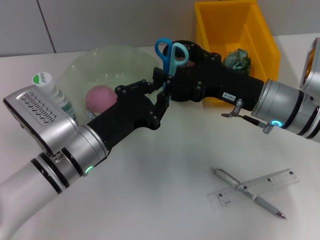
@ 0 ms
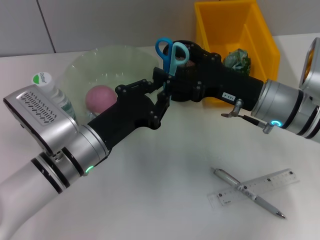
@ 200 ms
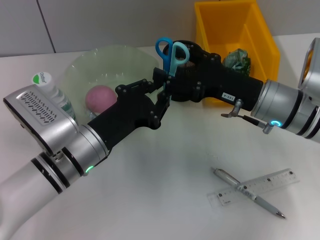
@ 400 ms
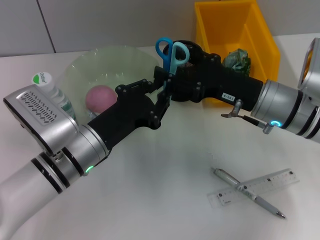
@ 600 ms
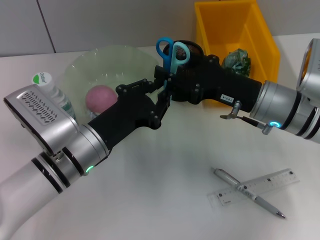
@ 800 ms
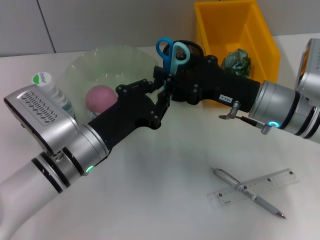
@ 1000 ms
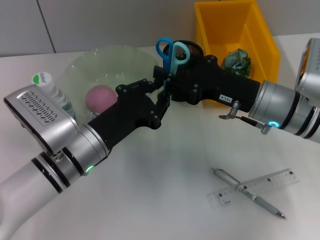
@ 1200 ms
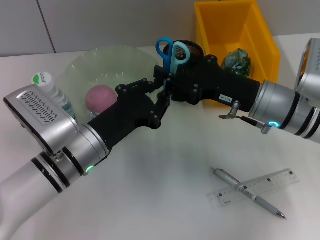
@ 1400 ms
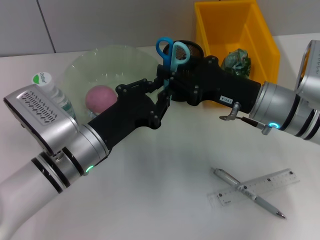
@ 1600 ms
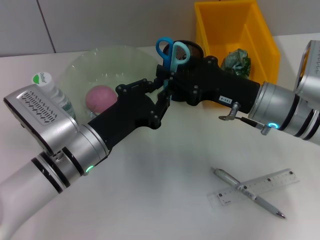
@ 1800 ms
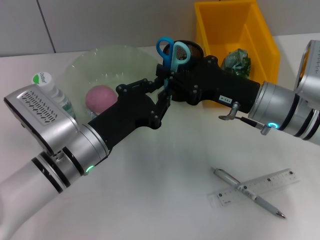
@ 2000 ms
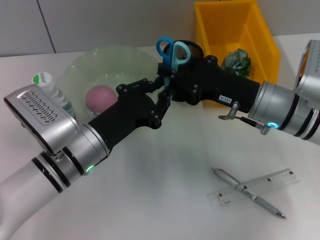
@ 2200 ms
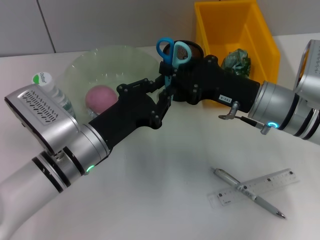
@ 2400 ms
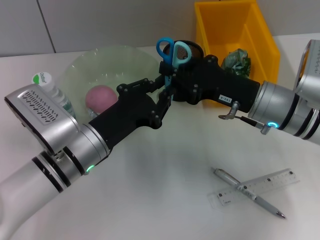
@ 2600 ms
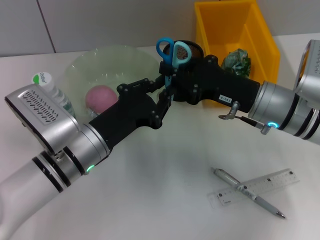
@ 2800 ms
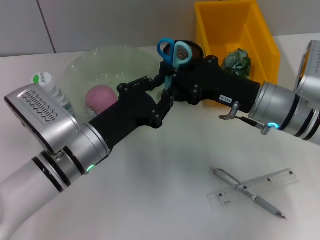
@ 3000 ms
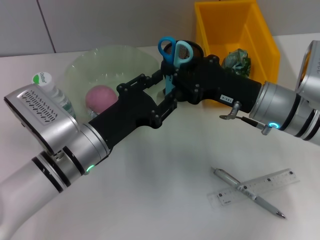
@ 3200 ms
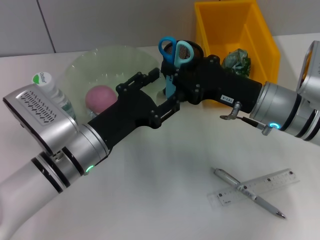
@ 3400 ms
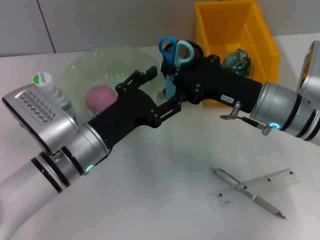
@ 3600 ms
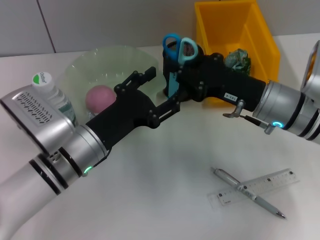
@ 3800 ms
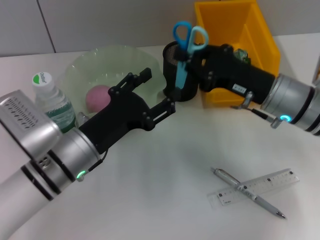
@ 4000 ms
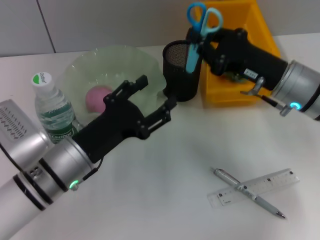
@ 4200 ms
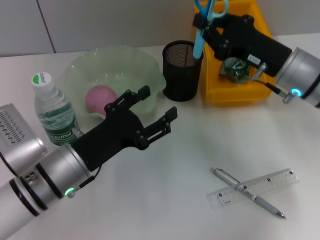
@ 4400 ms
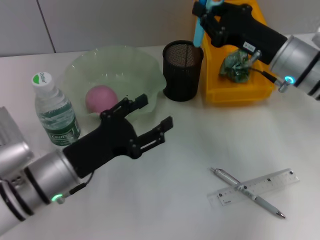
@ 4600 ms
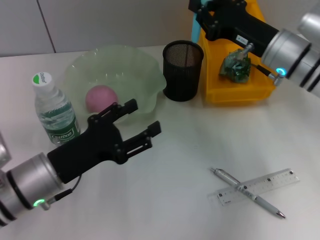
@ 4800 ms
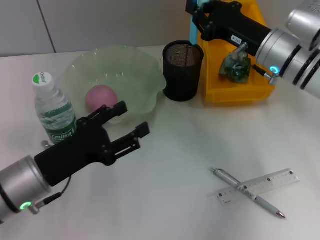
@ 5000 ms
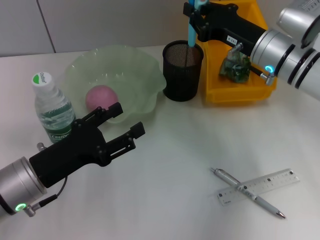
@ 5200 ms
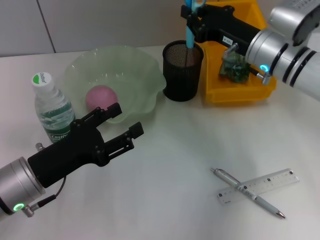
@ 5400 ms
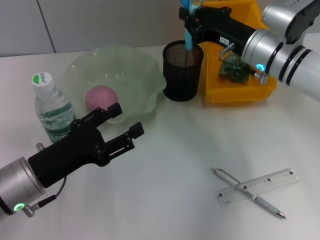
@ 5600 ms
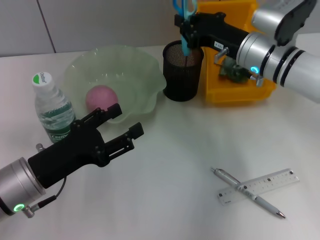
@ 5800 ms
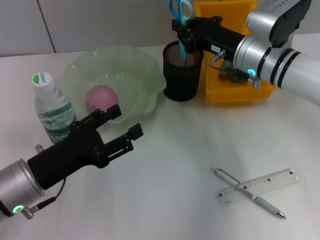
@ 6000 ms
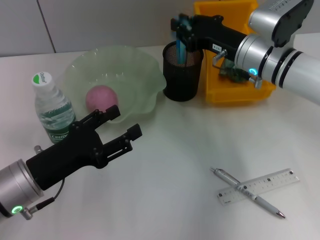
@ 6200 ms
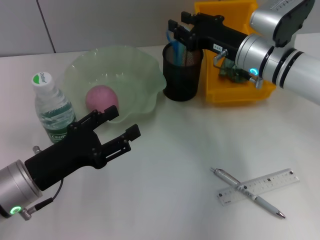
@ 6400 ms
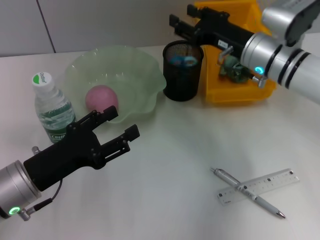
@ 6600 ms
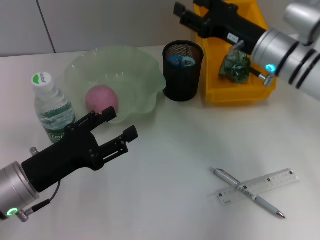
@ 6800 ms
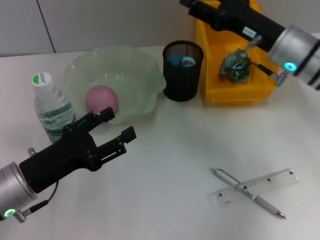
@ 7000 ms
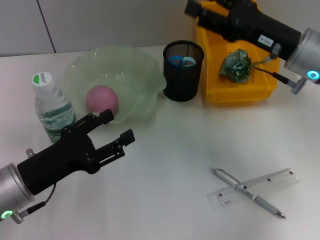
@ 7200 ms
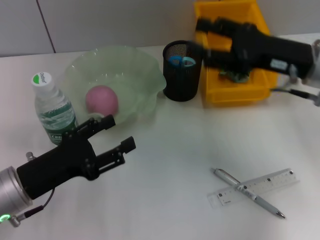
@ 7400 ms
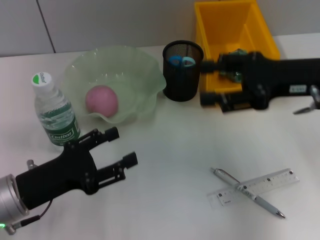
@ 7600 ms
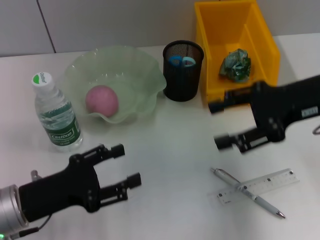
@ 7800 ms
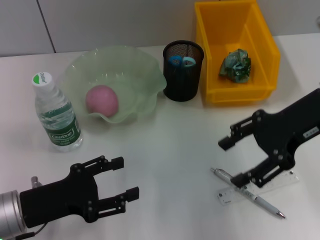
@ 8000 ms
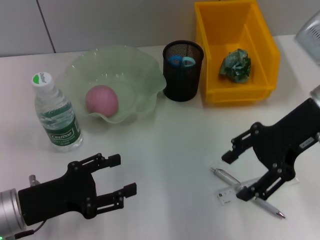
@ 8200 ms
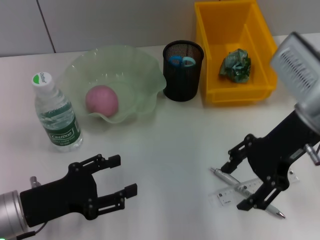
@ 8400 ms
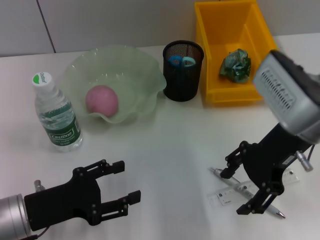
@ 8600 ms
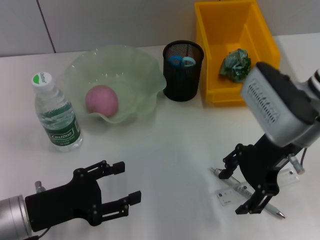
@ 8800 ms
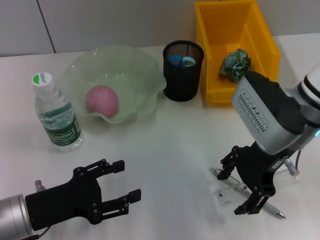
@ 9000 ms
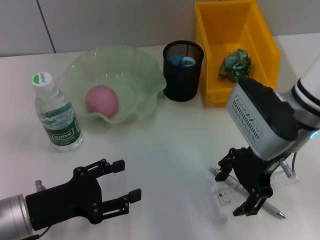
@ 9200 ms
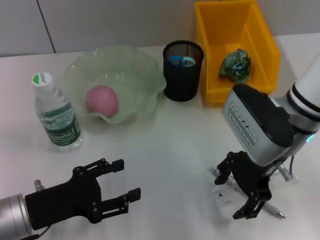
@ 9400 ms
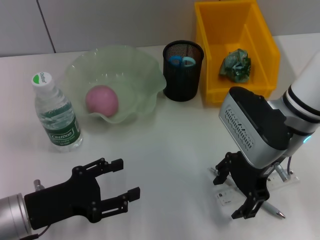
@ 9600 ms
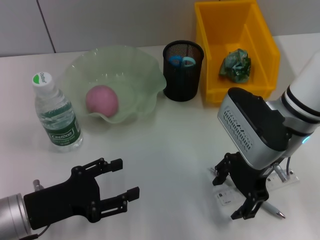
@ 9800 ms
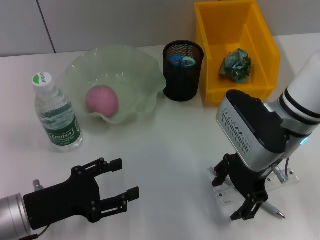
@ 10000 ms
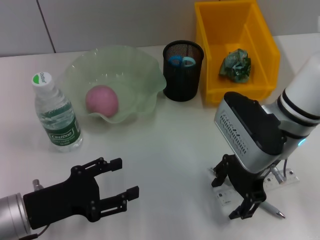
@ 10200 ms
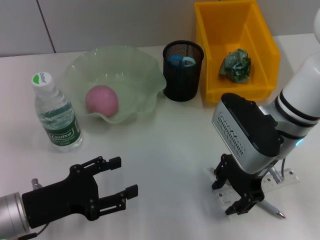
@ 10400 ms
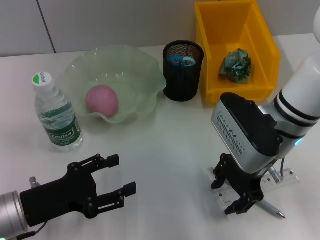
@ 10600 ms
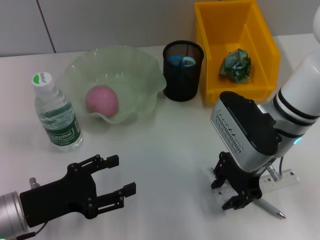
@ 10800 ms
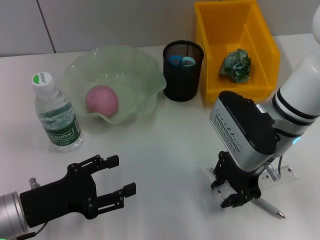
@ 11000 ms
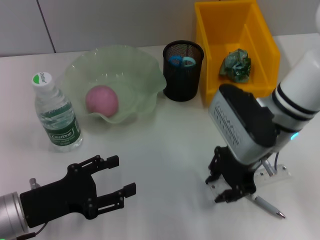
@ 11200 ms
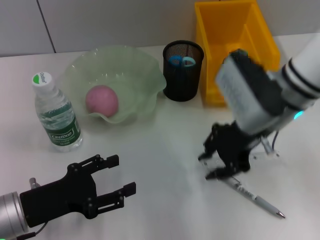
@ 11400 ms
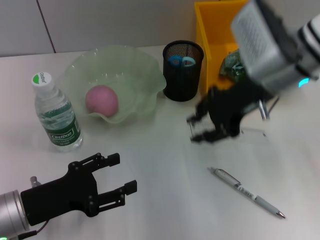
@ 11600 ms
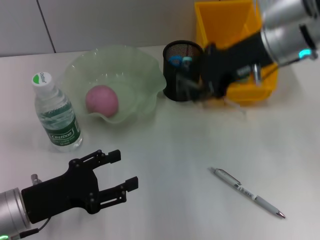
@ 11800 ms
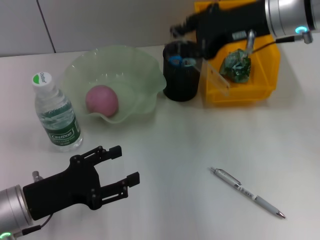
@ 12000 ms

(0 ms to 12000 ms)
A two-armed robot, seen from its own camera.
Step, 0 ms - 3200 ms: Pass the blue scissors from the left hand to the right hand.
Step, 3400 ms - 6400 ms: Place the blue scissors into the pen holder with the right hand.
Step, 6800 ms - 11000 ms: Grab the ruler with the right hand.
0 ms - 1600 ms: The right gripper closes.
1600 ms - 3000 ms: The right gripper closes up.
3000 ms - 4400 ms: The left gripper opens its fingers.
4400 ms - 6000 ms: The right gripper travels forward by some 5 cm; the left gripper goes approximately 5 cm to the left.
6000 ms - 7600 ms: The right gripper moves backward, to the right and upward, roughly 15 cm, and opens its fingers.
7600 ms - 9000 ms: The right gripper travels to the left by about 10 cm.
9000 ms - 10400 ms: The grippers move only a little.
10400 ms - 12000 ms: The right gripper moves upward and forward, approximately 15 cm, and closes.

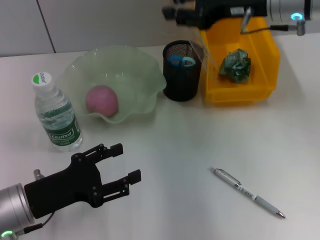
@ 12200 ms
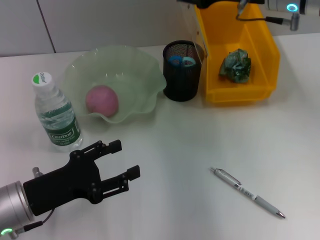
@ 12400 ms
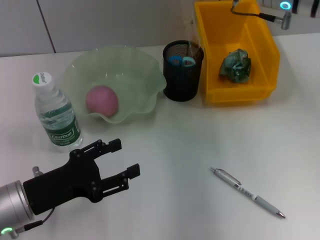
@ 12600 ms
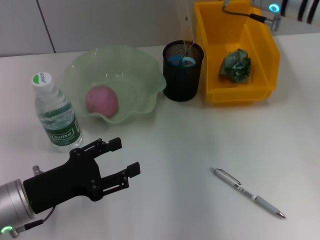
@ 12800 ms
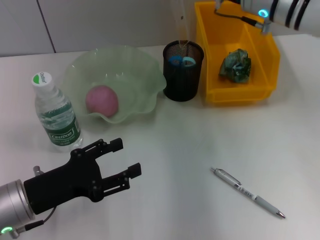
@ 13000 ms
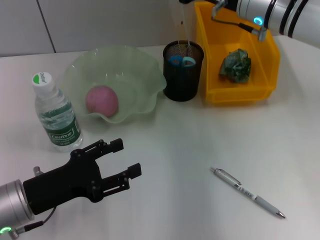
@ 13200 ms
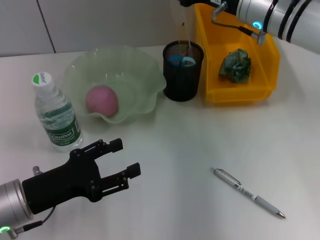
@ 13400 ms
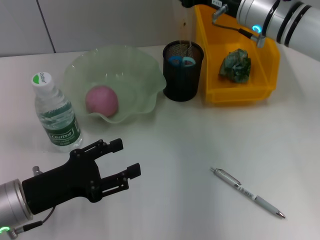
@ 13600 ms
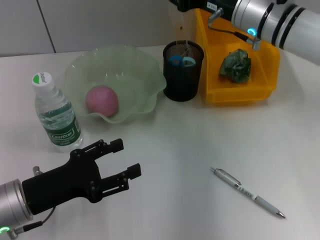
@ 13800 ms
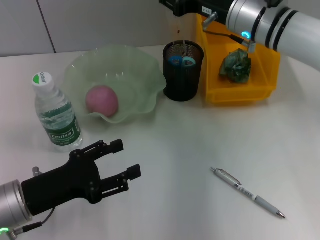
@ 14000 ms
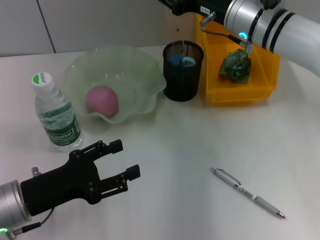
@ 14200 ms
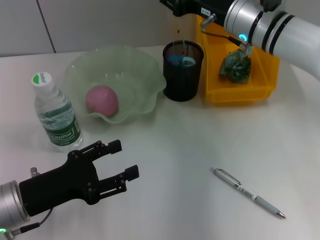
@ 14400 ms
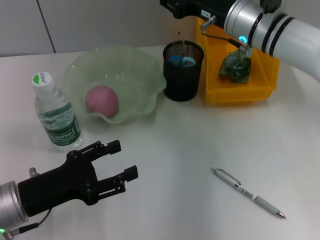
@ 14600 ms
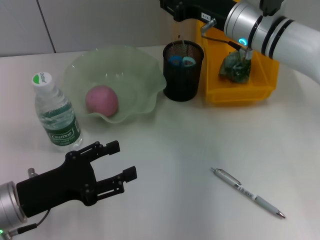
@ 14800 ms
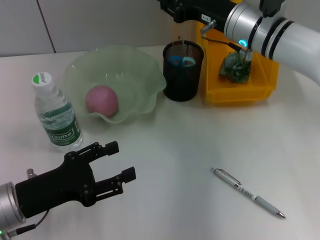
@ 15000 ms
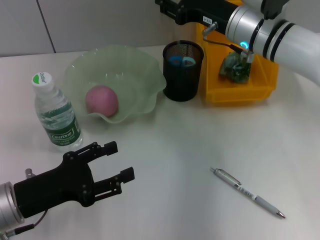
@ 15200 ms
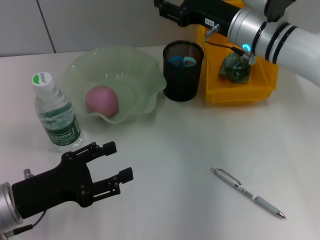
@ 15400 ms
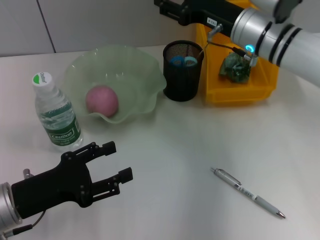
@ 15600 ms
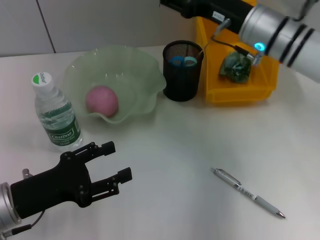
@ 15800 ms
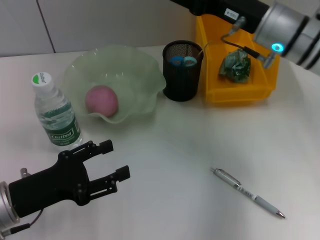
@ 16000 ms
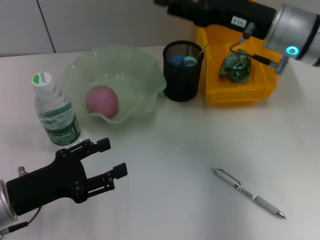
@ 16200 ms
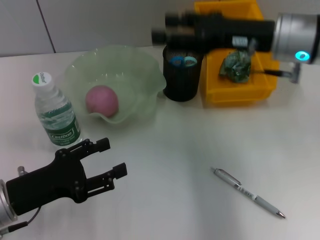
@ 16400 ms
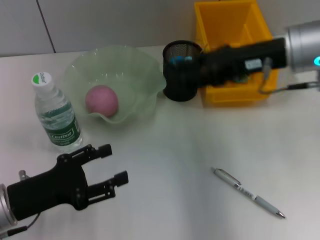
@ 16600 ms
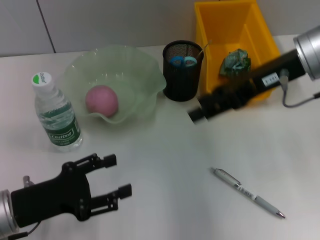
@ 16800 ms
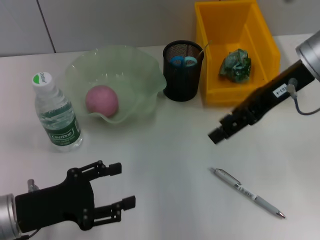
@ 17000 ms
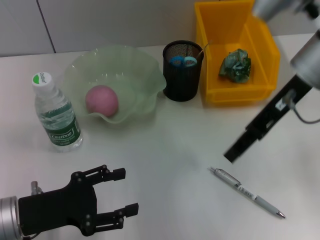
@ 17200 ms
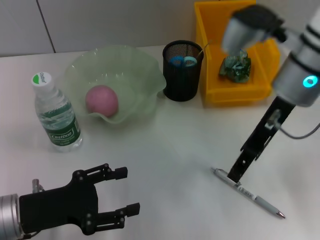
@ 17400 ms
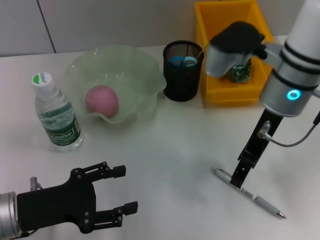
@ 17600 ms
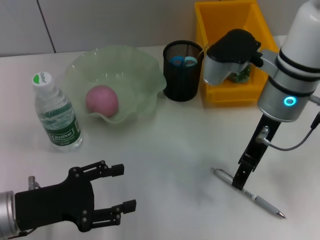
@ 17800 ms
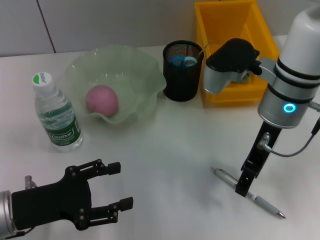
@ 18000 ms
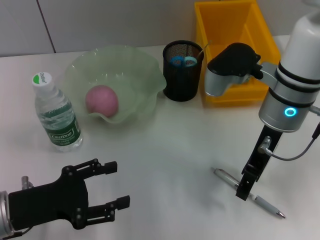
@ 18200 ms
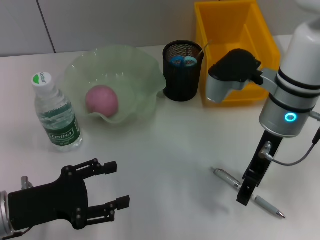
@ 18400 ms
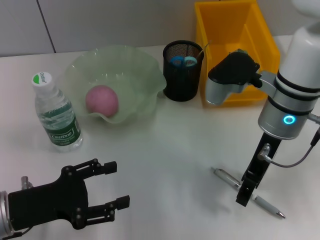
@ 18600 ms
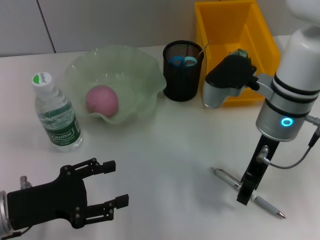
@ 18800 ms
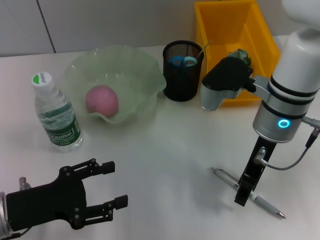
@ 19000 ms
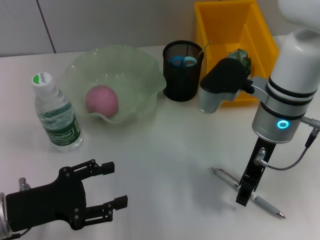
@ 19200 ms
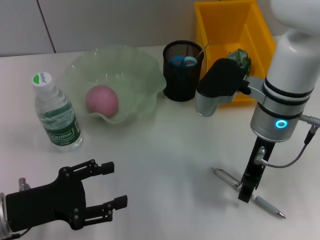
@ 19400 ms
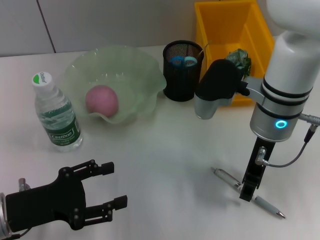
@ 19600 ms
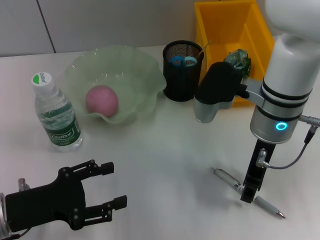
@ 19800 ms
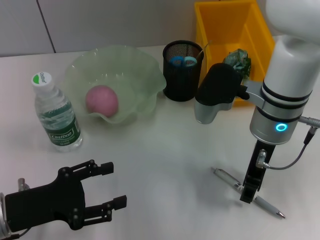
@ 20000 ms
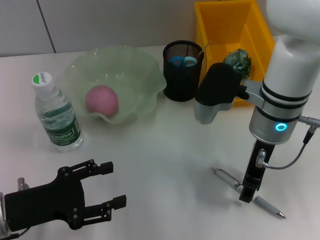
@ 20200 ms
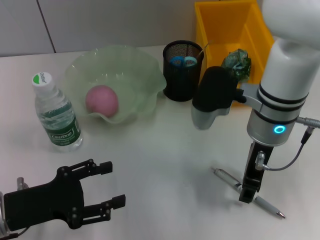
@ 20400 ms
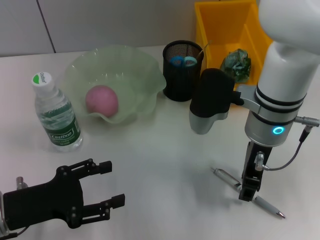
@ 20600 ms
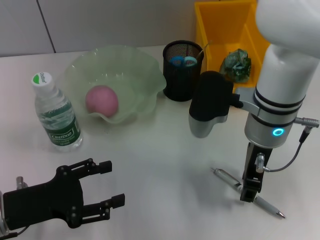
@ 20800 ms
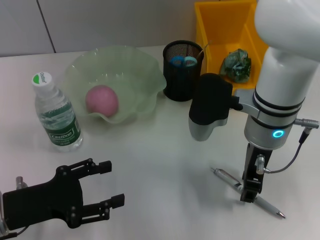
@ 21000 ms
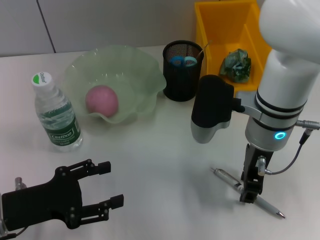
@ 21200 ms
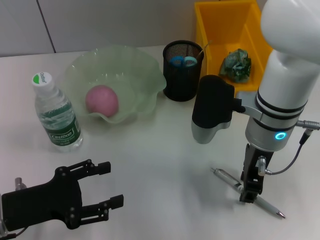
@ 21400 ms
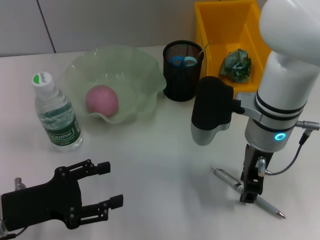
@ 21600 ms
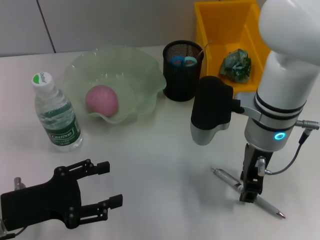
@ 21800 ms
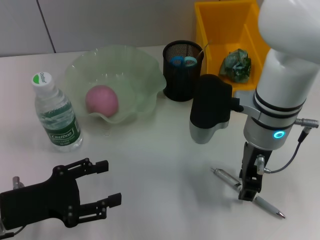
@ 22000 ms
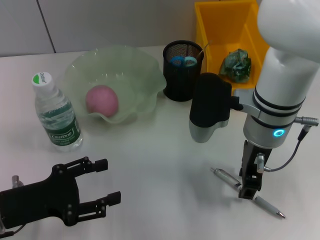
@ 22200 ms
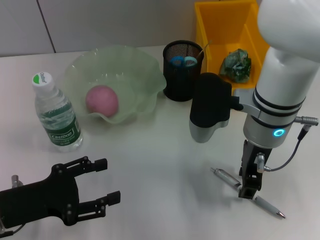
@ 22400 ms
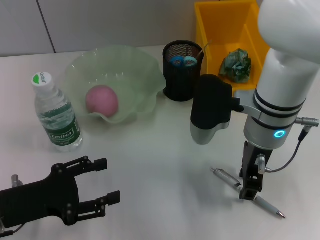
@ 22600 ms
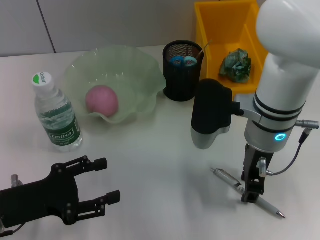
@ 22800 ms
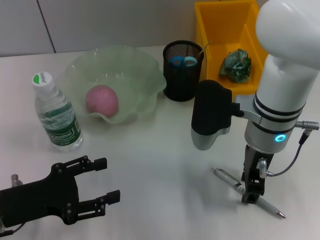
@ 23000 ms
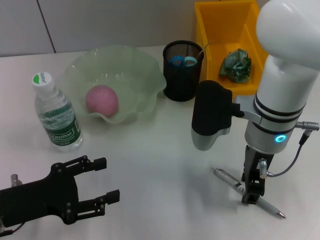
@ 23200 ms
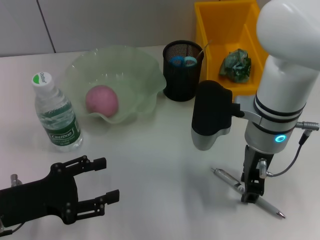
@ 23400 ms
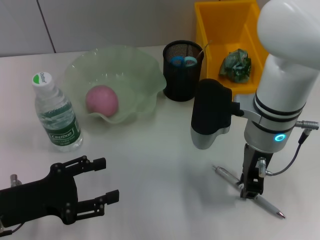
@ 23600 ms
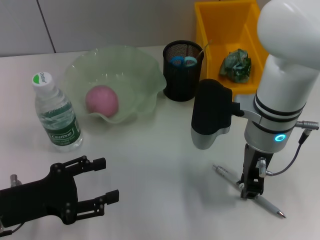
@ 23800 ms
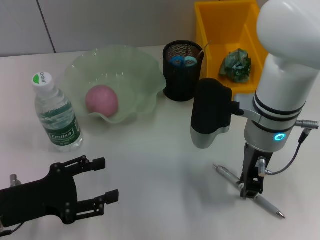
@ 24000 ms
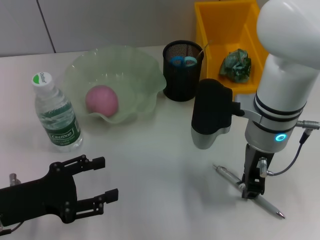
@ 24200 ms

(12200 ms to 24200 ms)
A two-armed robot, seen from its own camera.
Step, 12200 ms - 15400 ms: Place the ruler into the pen holder with the right hand.
12200 ms - 13800 ms: The right gripper moves downward, about 5 cm.
13800 ms - 15200 ms: The grippers stay close to where they were, moving slightly.
15200 ms - 16600 ms: The right gripper is displaced backward and upward by roughly 10 cm.
16600 ms - 18200 ms: The right gripper changes place by some 5 cm.
18200 ms - 19800 ms: There are only small adjustments of the grippers.
19800 ms - 21200 ms: The grippers stay close to where they were, moving slightly.
21200 ms - 24200 ms: Both grippers stay about where they are.
